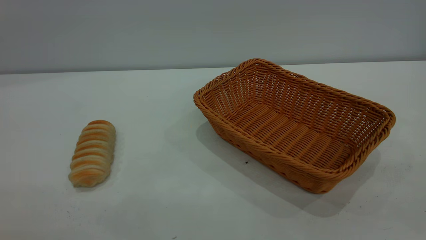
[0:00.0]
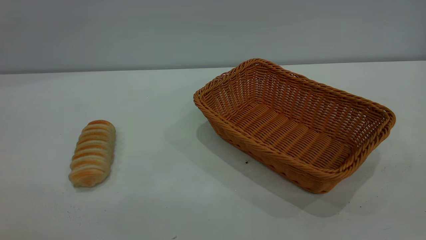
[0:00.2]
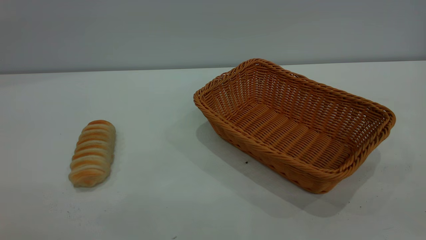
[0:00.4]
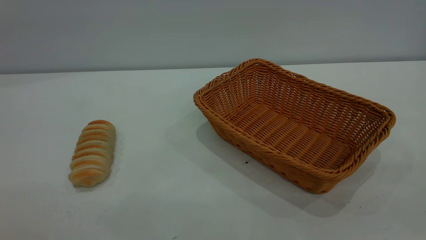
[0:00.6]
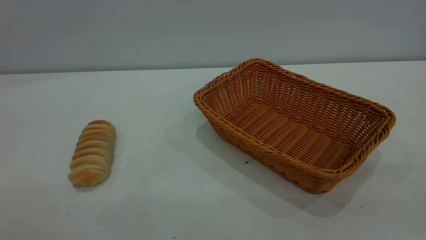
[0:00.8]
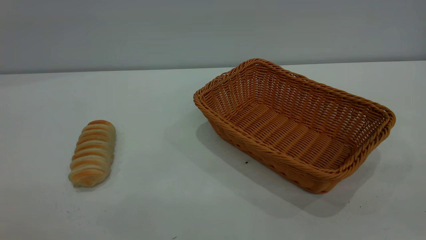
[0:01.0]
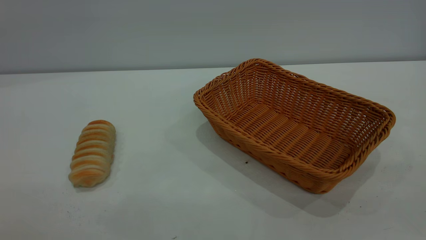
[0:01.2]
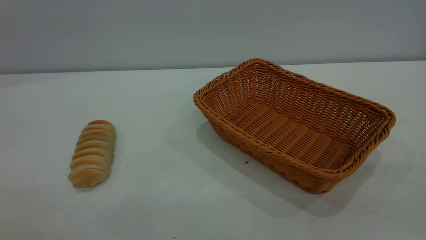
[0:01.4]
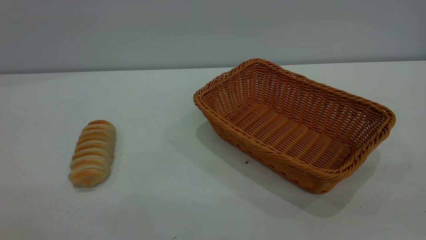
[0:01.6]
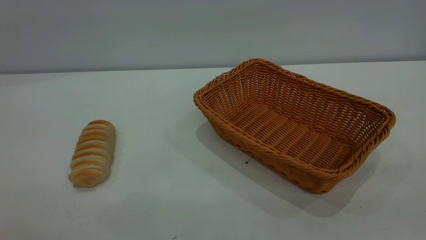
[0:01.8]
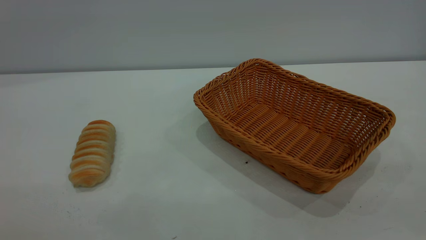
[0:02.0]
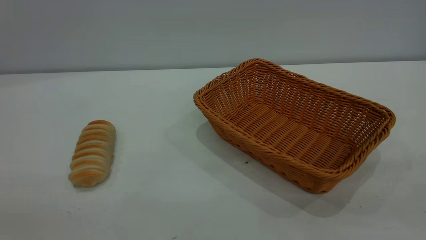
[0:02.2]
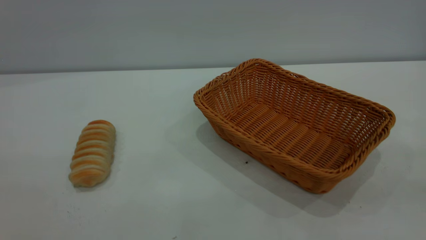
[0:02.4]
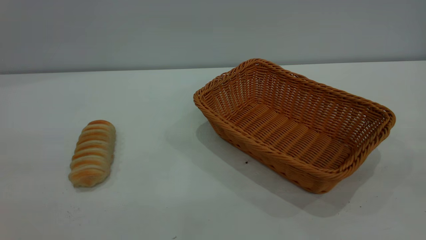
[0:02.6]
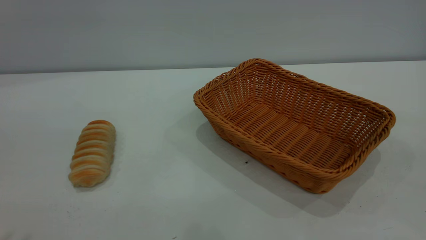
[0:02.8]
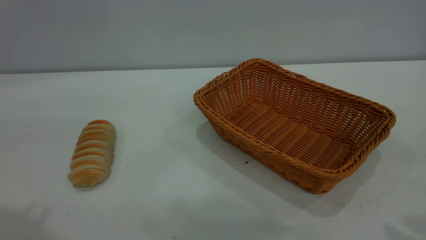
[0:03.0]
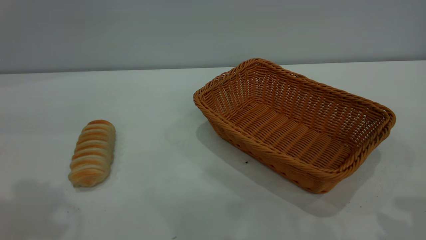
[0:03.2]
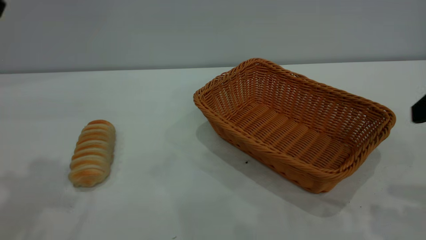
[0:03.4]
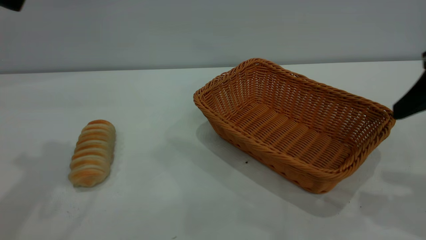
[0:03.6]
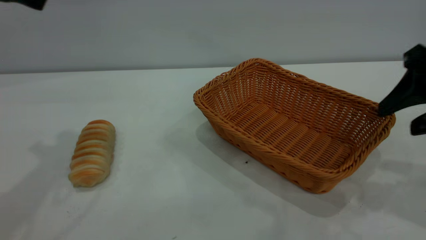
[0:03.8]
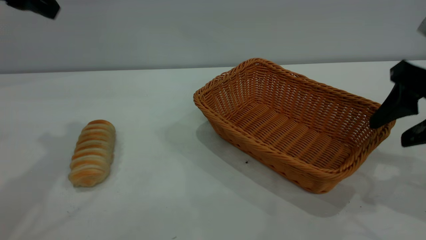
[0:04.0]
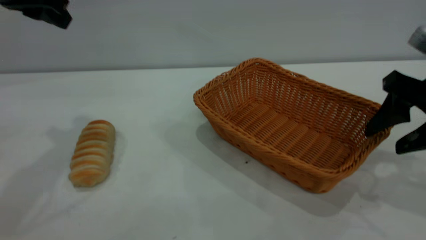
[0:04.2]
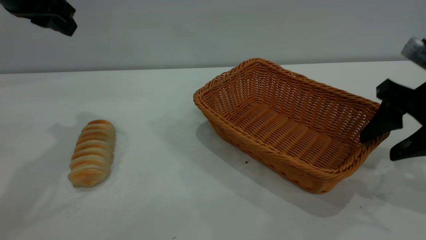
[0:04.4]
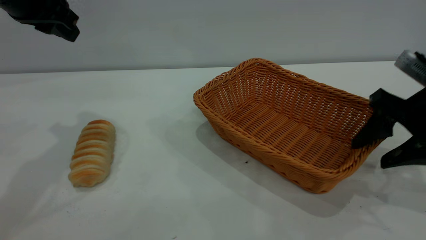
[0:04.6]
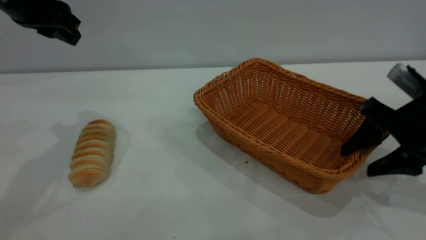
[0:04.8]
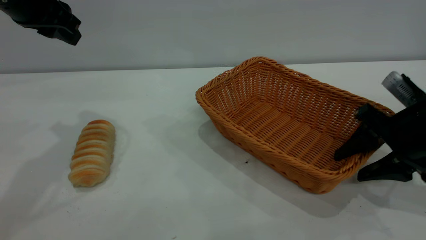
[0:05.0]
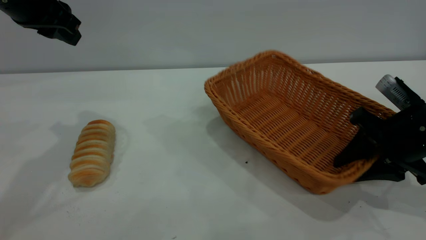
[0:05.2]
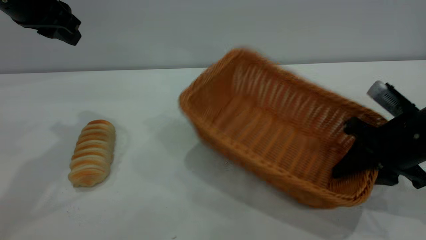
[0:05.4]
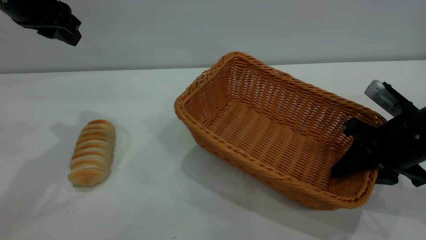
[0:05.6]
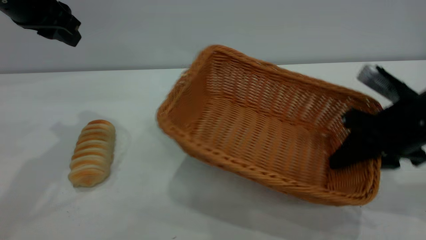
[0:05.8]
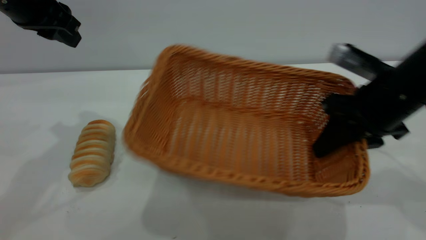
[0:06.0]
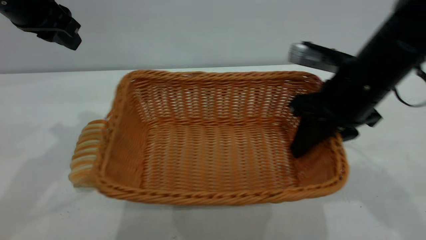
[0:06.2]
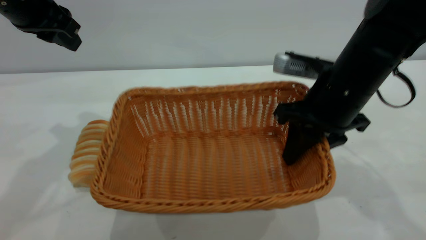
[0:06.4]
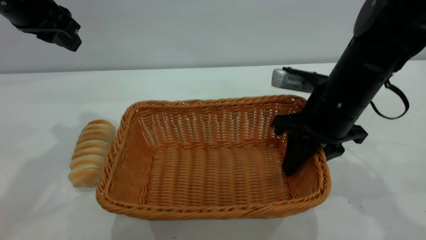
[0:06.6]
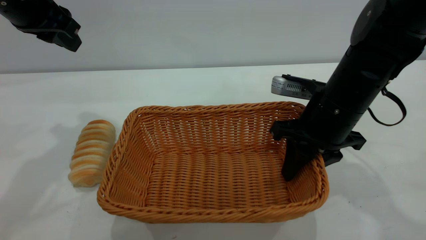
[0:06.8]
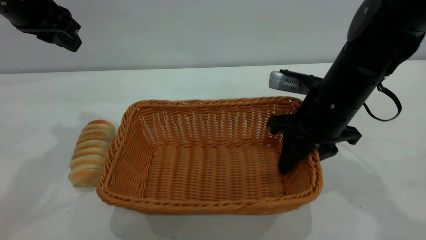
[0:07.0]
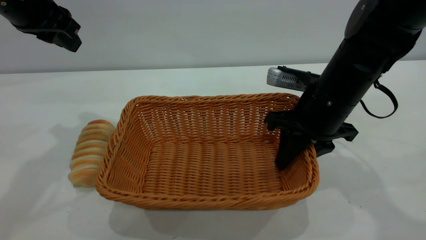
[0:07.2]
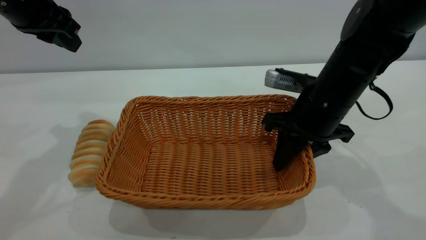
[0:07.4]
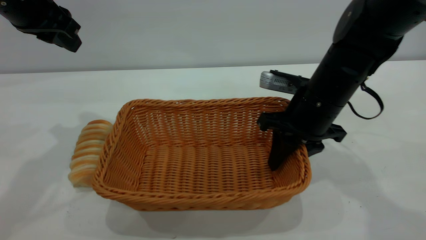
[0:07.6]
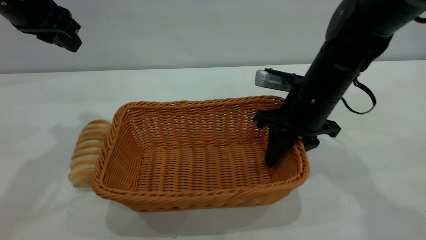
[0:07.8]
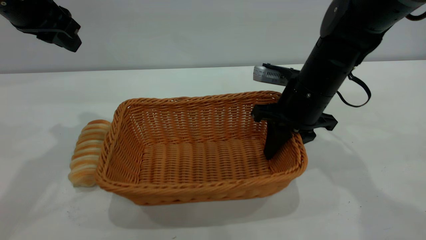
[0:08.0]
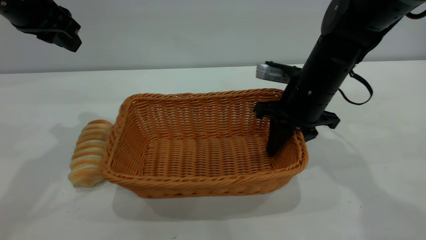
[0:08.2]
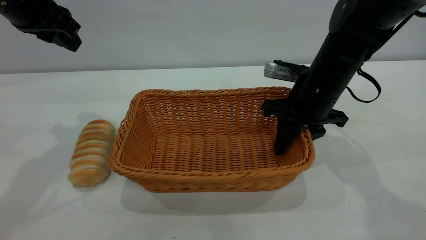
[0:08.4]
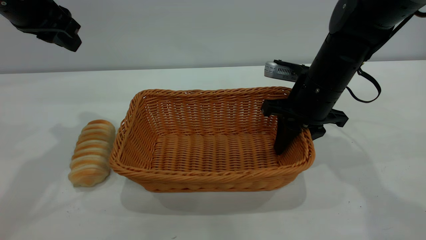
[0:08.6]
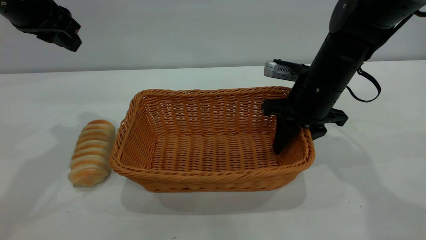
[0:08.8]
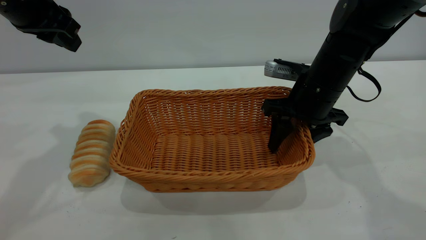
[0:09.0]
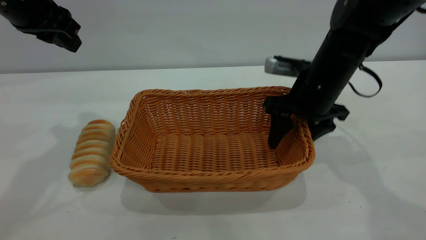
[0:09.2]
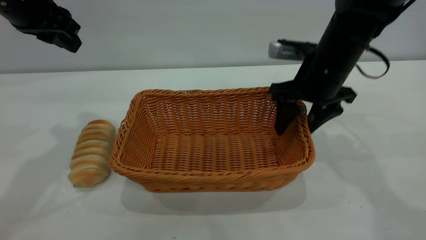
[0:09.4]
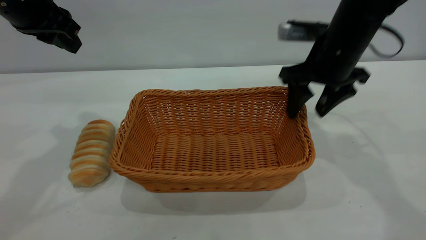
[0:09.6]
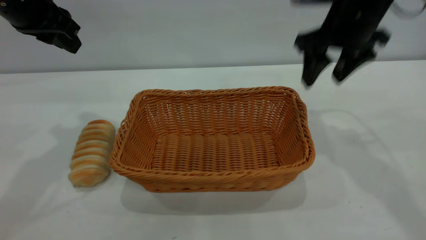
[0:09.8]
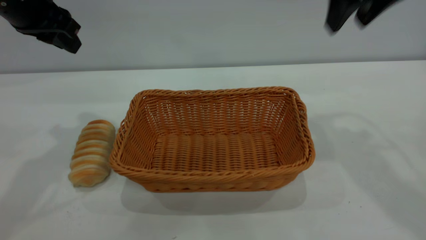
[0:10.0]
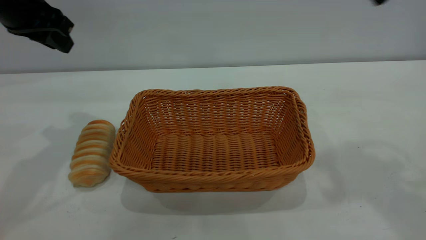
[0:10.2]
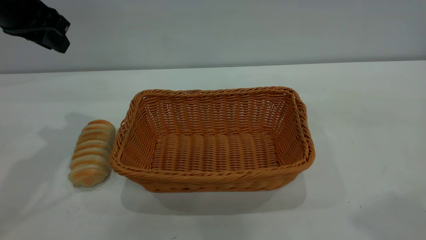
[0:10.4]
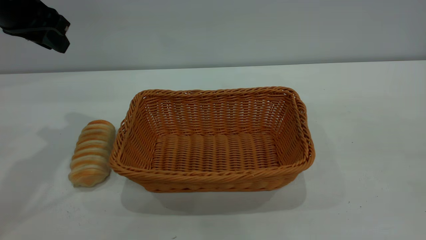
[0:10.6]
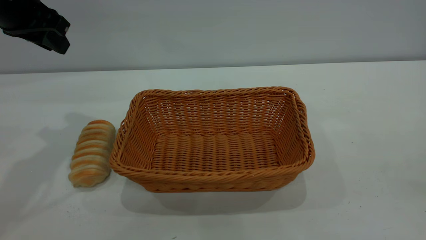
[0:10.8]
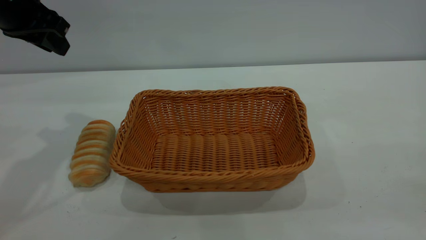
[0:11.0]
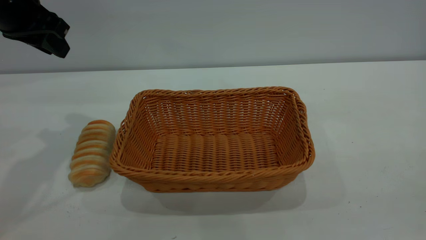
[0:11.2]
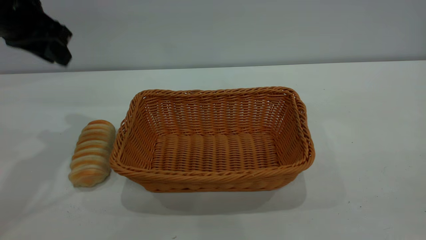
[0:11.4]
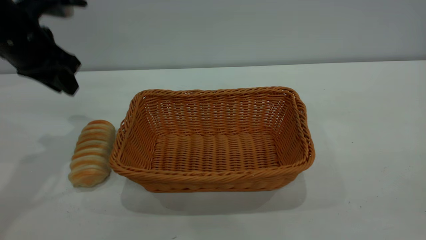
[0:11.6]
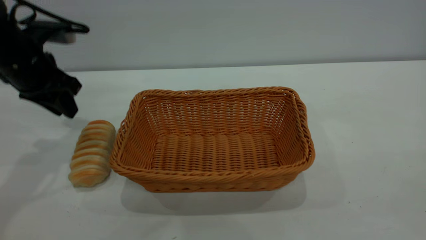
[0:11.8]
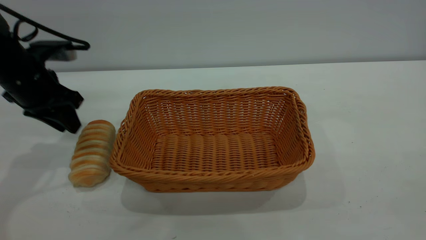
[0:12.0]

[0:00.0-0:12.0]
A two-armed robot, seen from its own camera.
Task of the whole recording: One hand grasps the yellow basket and places it in the middle of the table, while the other hand picks up the long bread and puts it into the yellow basket.
Step, 0:00.0 to 0:09.6: Move the basket to the center of view.
0:00.0 to 0:01.6: Both grippers stay put.
0:03.0 to 0:04.4: The left gripper moves forward, some 20 cm. Meanwhile the right gripper is displaced downward and forward by about 20 cm.
0:04.4 to 0:06.0: The right gripper is displaced to the left by some 5 cm, and closes up.
0:06.0 to 0:07.6: The right gripper shifts roughly 5 cm to the left.
0:07.6 to 0:09.0: The right gripper opens its fingers.
0:09.0 to 0:10.4: The right gripper goes roughly 35 cm upward and backward.
0:10.4 to 0:12.0: The left gripper goes roughly 10 cm downward.

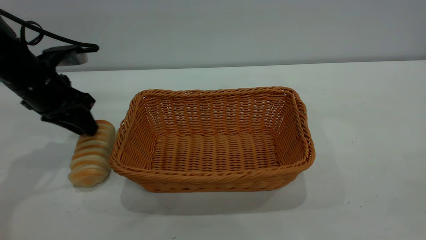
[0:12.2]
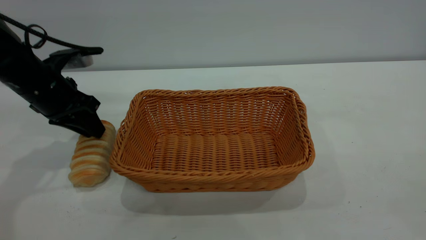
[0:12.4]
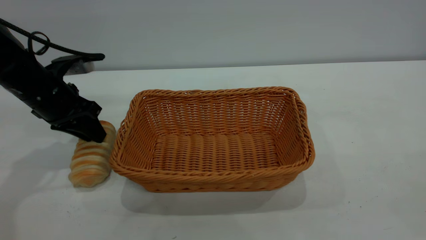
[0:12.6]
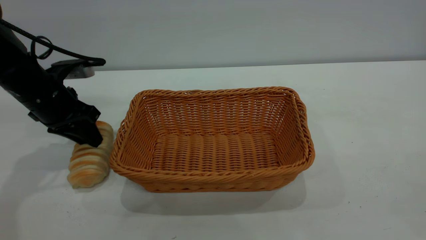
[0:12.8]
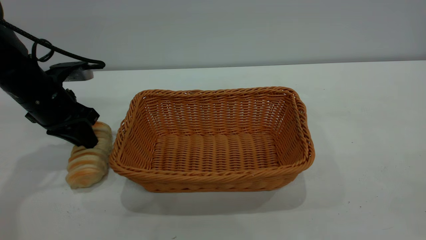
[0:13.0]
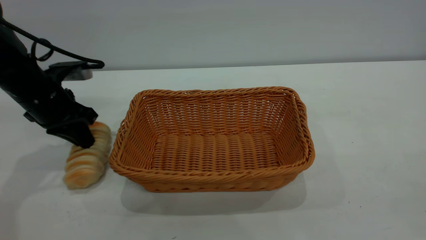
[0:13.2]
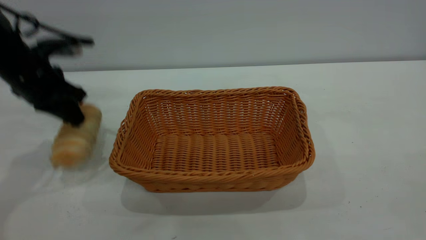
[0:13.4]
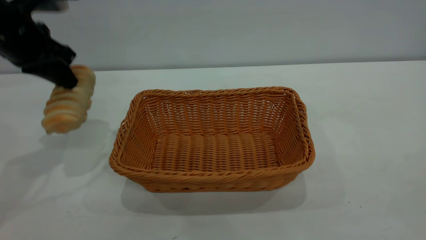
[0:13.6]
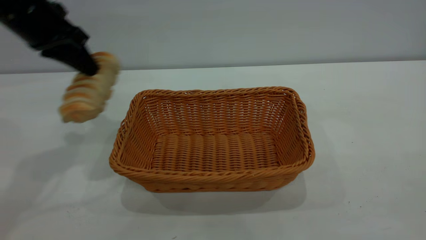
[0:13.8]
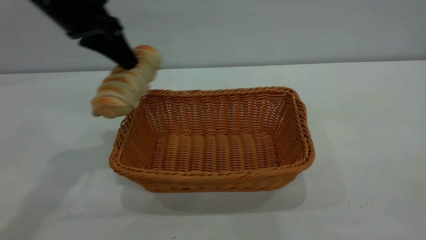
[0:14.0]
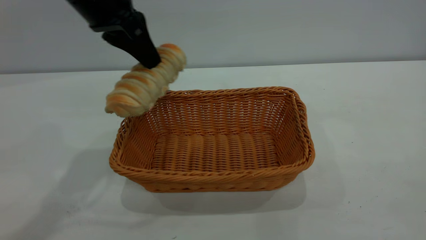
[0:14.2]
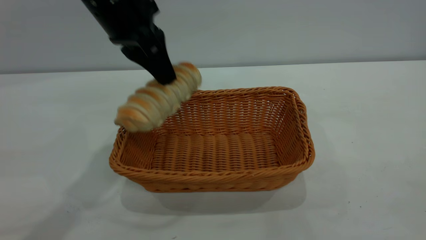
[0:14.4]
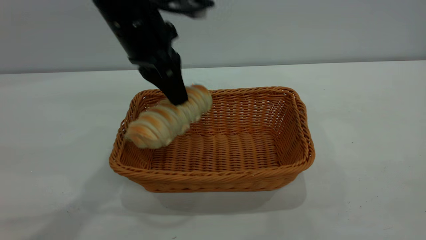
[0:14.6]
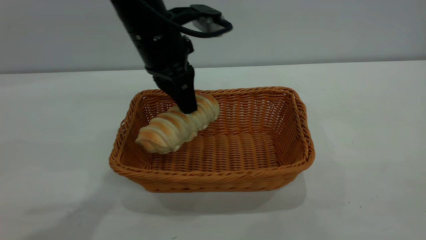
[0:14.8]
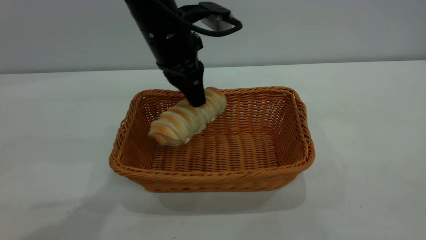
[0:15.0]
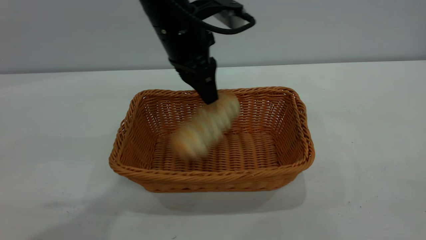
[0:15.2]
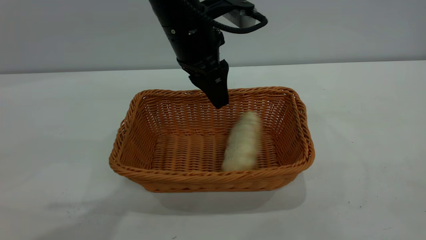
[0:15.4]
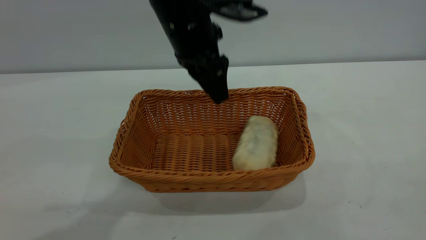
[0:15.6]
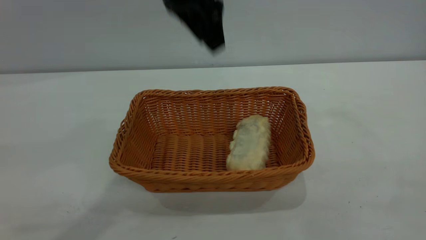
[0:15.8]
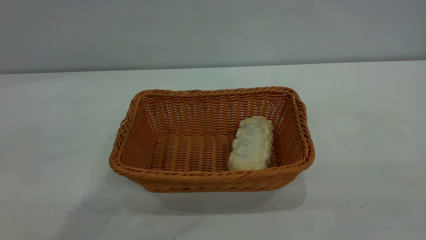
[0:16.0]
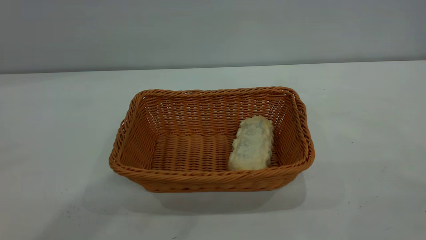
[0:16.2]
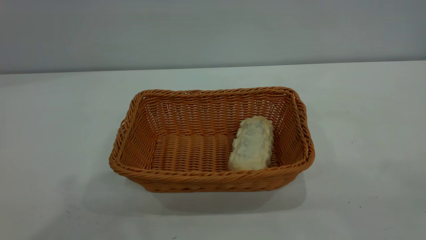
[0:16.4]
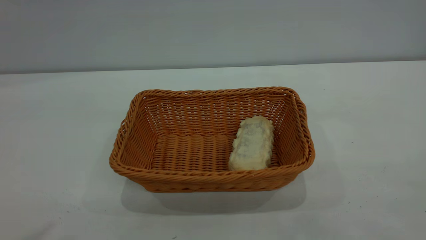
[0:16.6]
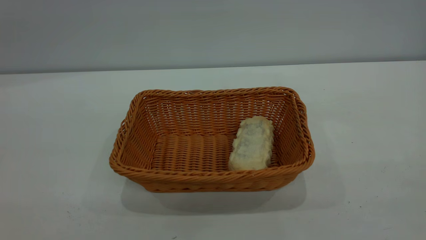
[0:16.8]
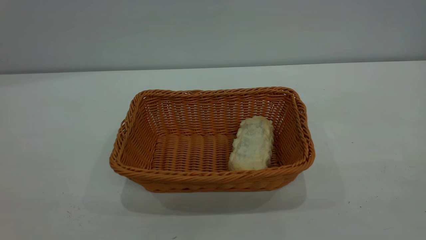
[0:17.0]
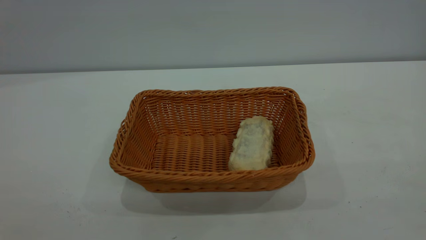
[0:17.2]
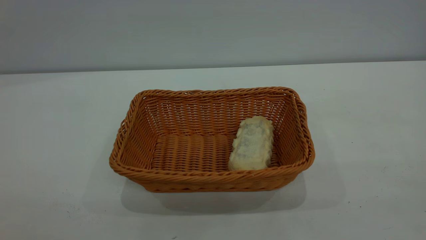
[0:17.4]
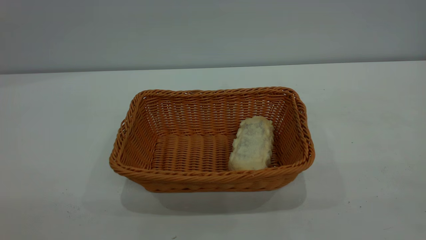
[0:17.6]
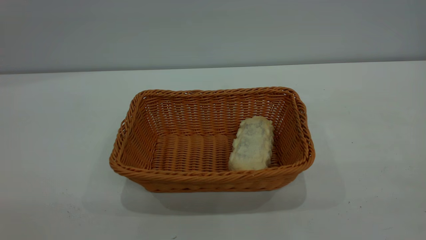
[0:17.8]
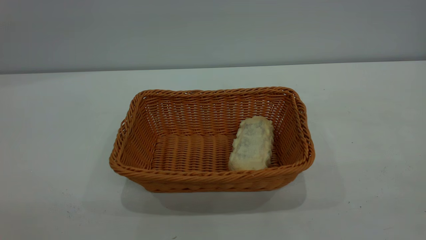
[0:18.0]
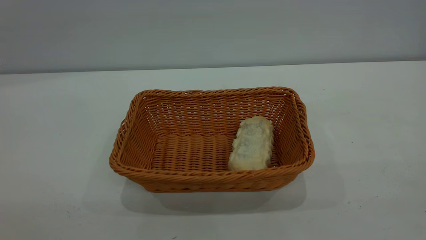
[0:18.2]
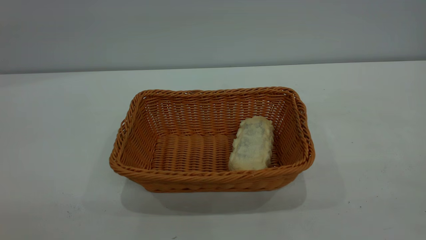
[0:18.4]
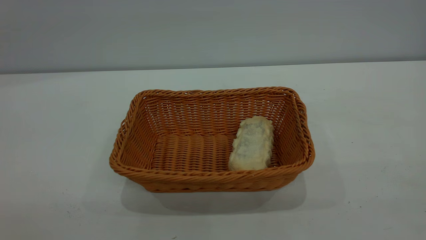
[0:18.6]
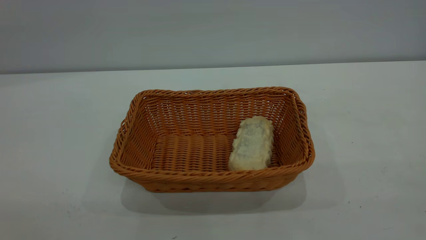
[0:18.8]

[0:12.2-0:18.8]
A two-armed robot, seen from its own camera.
Task of the whole recording: One hand grasps the yellow basket and places it in the middle of the table, while the other hand picks up the long bread and puts it into the yellow basket.
Step, 0:13.8 to 0:15.6: place the bread into the basket.
0:12.2 to 0:13.8: The left gripper shifts some 10 cm upward, and closes its fingers.
0:13.8 to 0:15.4: The left gripper moves to the right, about 20 cm, and opens.
0:15.4 to 0:17.2: The left gripper travels backward, to the left and upward by approximately 60 cm.
